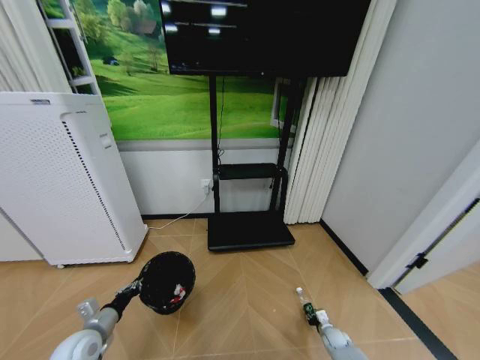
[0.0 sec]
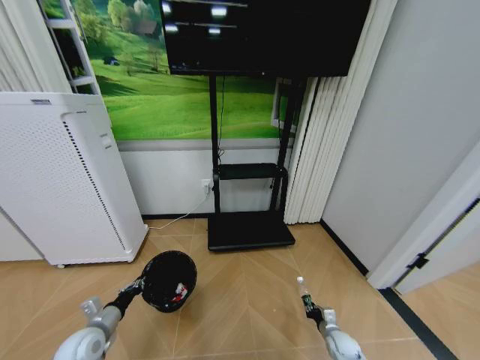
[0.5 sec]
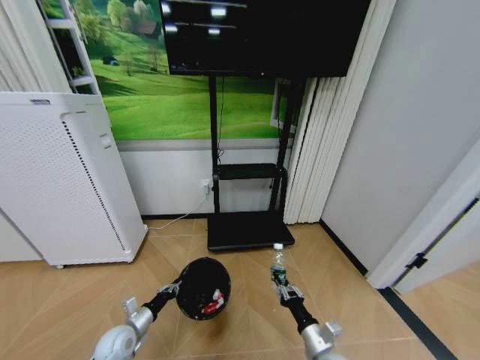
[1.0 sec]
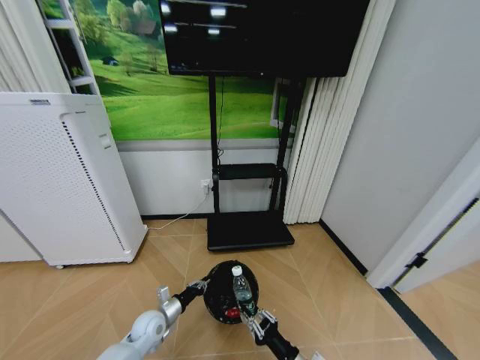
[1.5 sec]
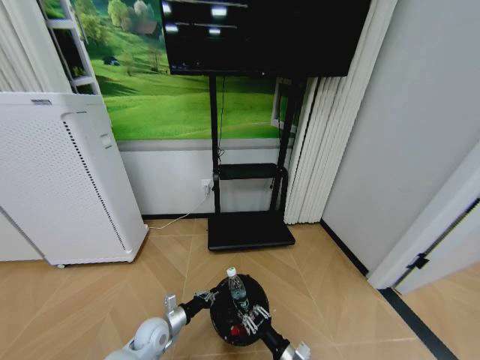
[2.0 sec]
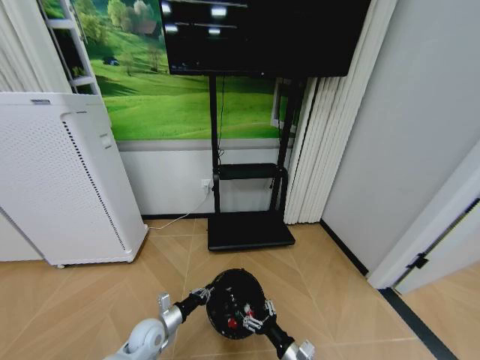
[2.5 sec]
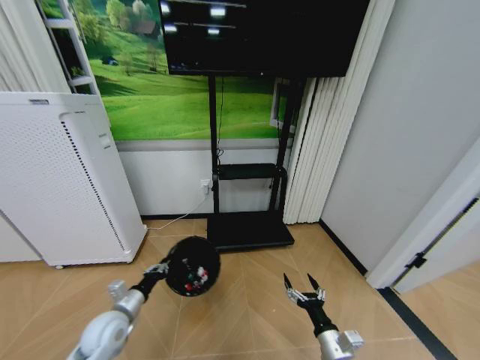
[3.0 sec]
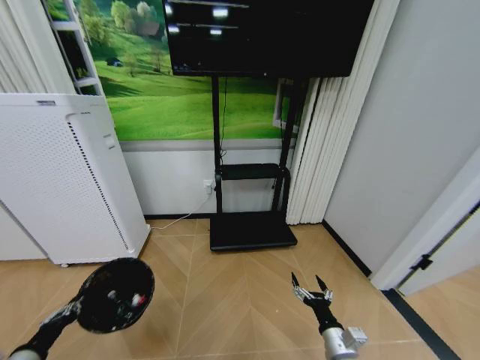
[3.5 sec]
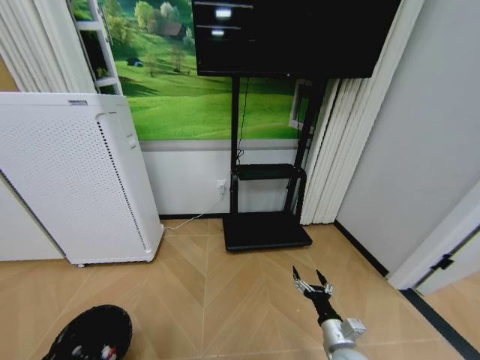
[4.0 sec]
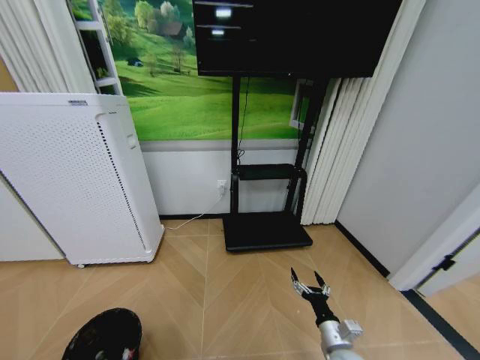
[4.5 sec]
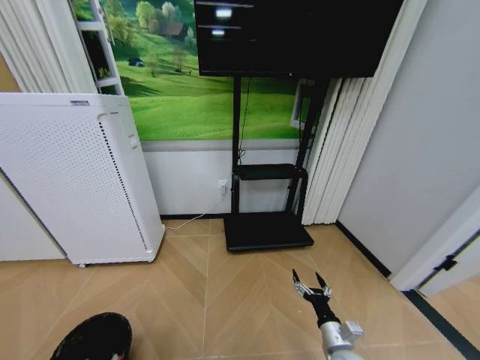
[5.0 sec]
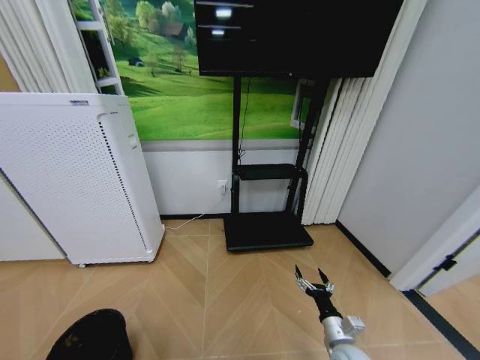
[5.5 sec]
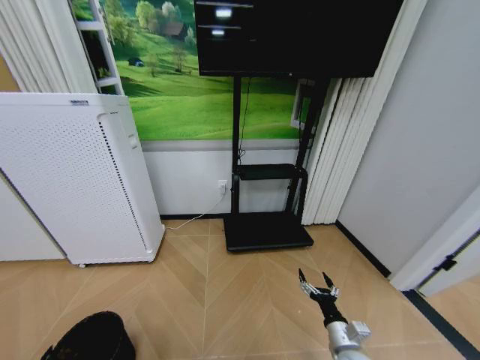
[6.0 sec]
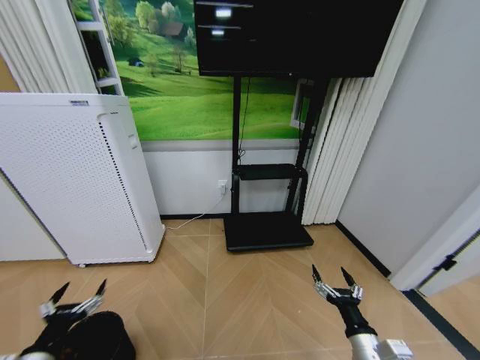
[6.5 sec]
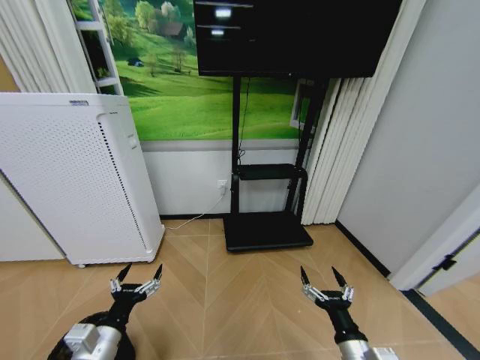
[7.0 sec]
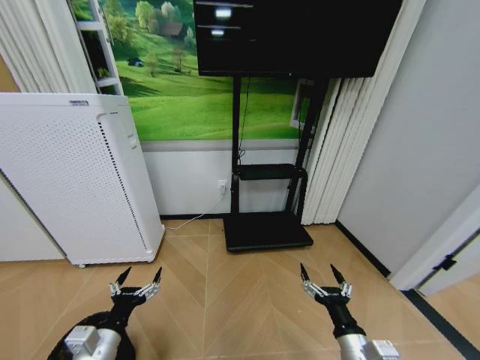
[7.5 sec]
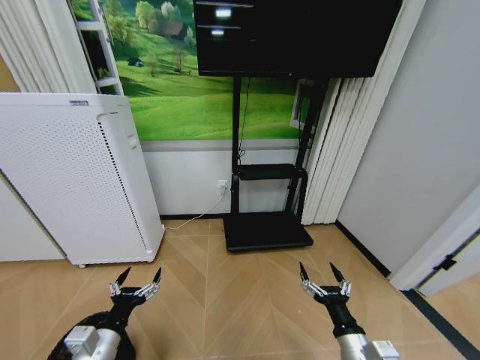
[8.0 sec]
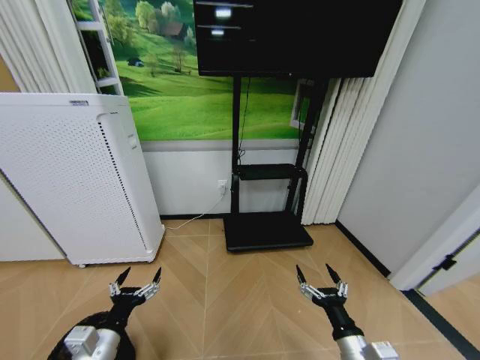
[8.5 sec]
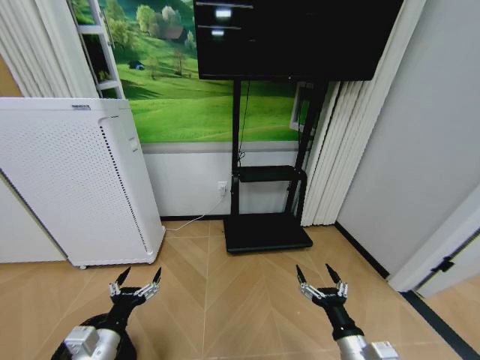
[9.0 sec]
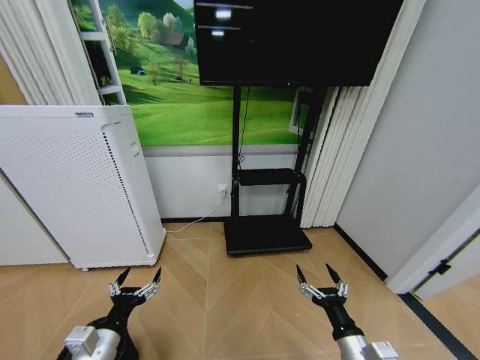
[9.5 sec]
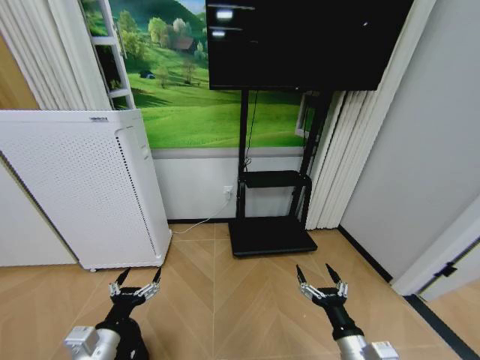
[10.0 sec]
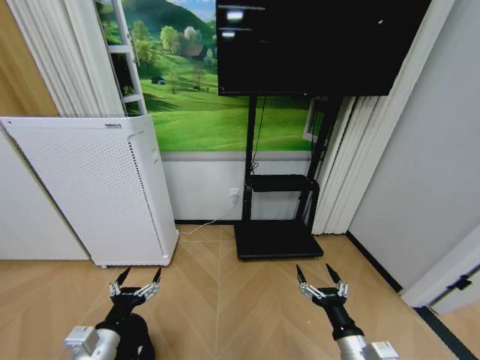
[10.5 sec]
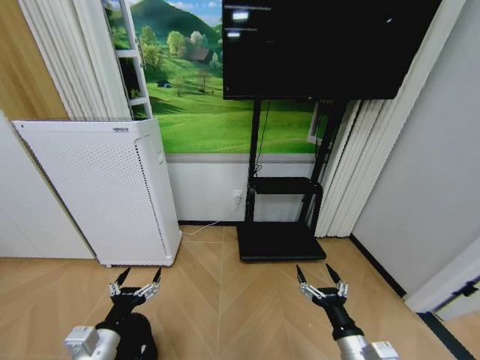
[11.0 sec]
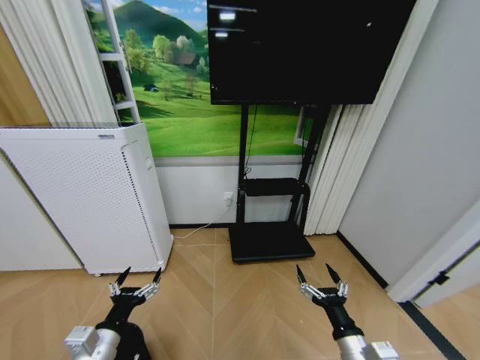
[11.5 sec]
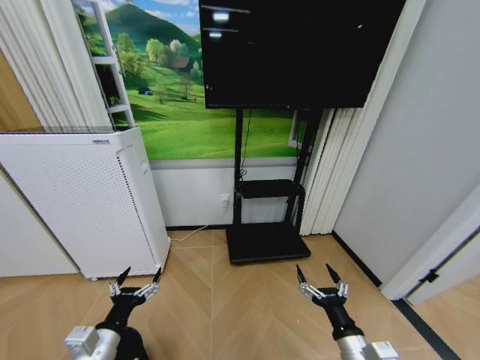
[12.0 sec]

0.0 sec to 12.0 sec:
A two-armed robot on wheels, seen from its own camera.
Task of the whole recording: Pick up the trash bin and place the garbage on the floor into it.
0.0 sec to 2.0 sec: The left gripper moves to the right and downward, roughly 15 cm. The right gripper heads to the left, upward and backward, covering some 30 cm.
2.0 sec to 4.0 sec: The left gripper is displaced to the left and backward by about 35 cm. The right gripper moves to the right, some 10 cm, and opens.
4.0 sec to 6.0 sec: The left gripper opens up.
6.0 sec to 8.0 sec: The left gripper is displaced to the right, upward and forward by about 30 cm. The right gripper heads upward and backward, covering approximately 10 cm.
